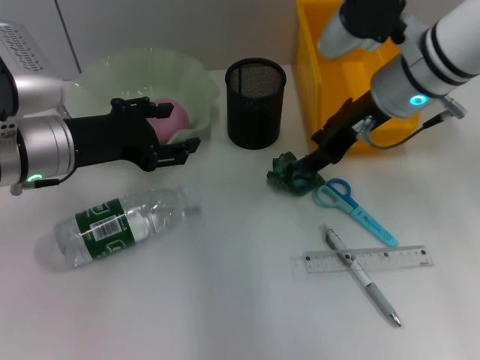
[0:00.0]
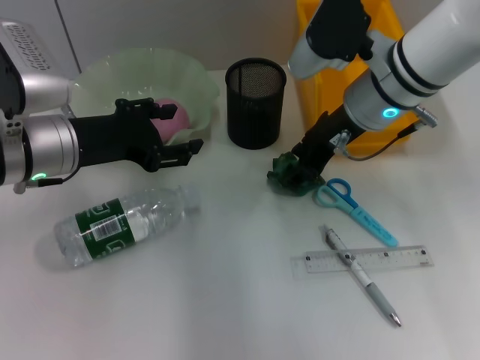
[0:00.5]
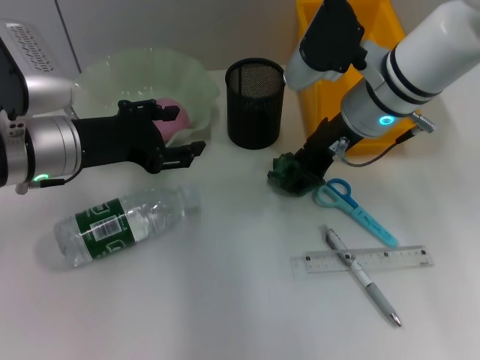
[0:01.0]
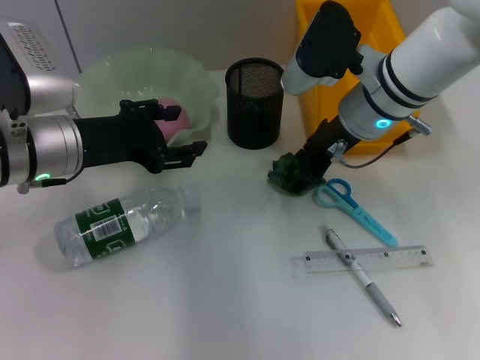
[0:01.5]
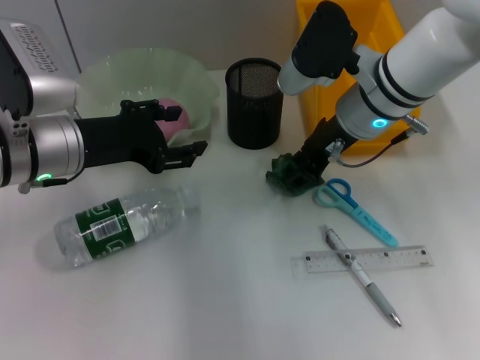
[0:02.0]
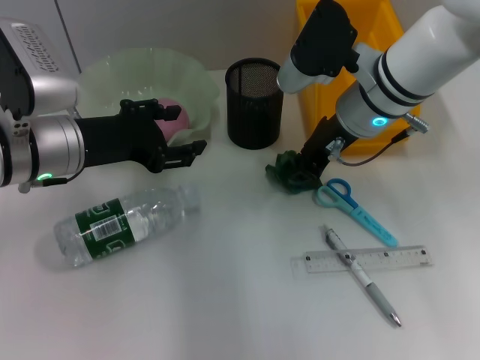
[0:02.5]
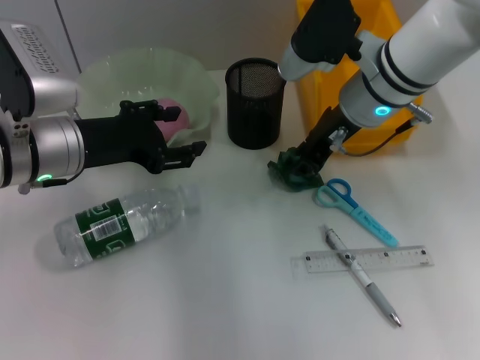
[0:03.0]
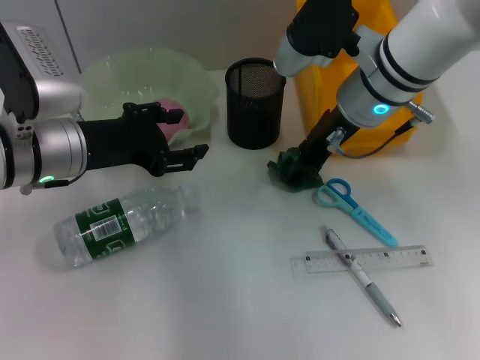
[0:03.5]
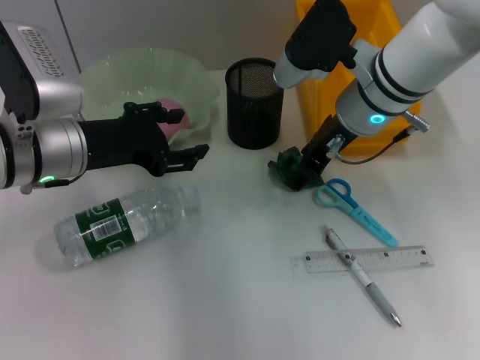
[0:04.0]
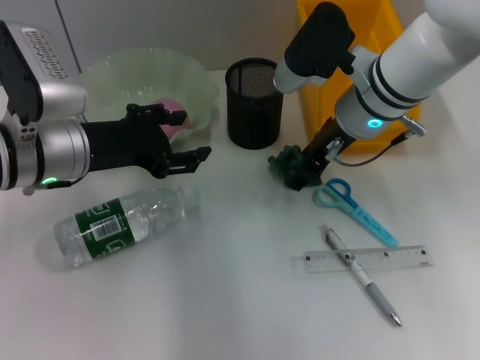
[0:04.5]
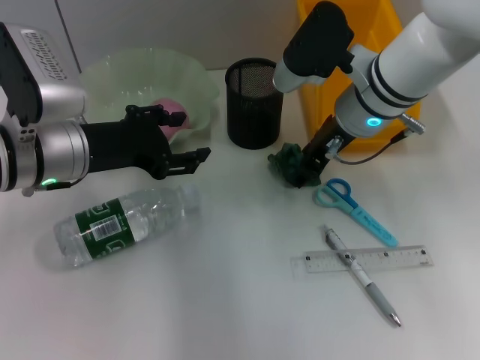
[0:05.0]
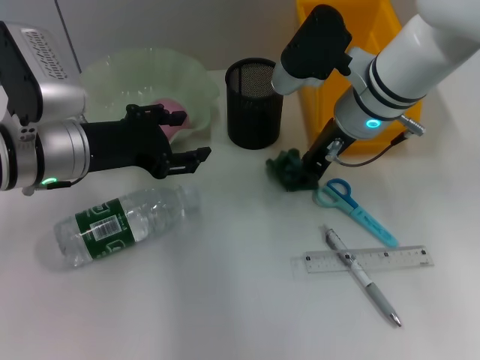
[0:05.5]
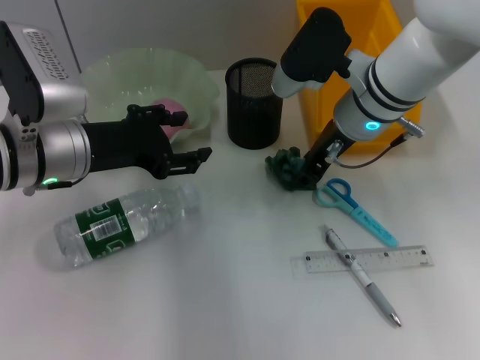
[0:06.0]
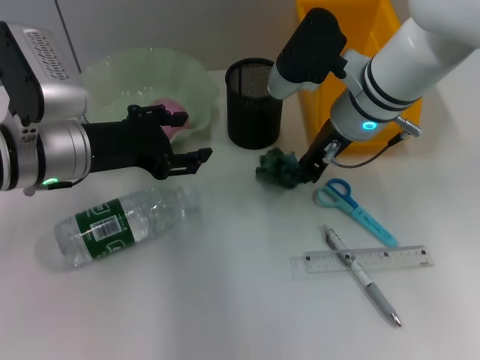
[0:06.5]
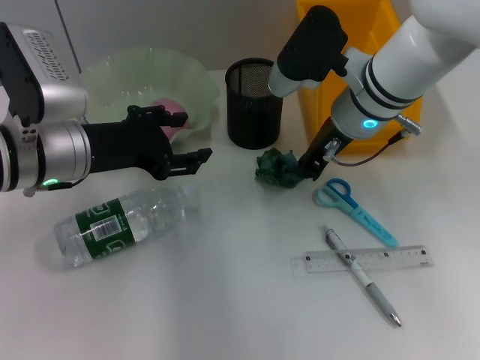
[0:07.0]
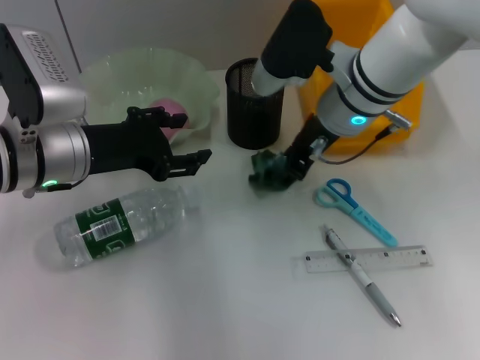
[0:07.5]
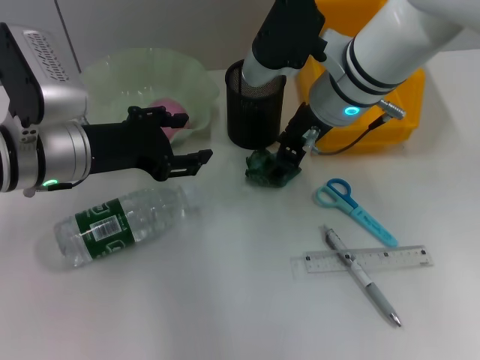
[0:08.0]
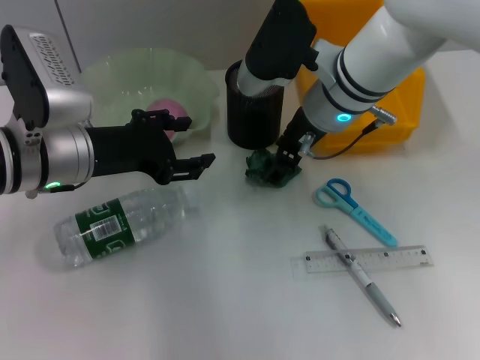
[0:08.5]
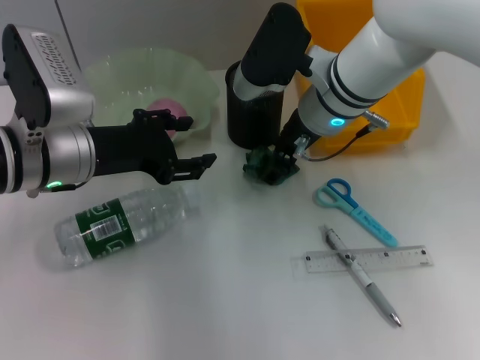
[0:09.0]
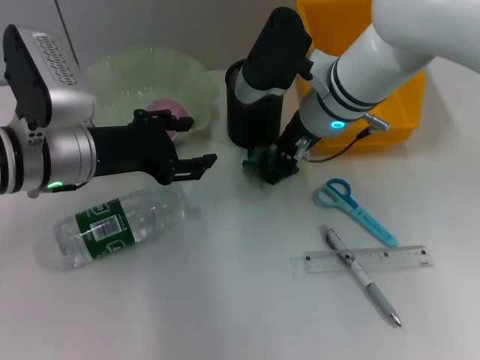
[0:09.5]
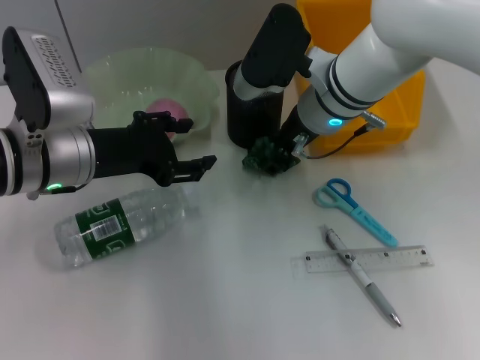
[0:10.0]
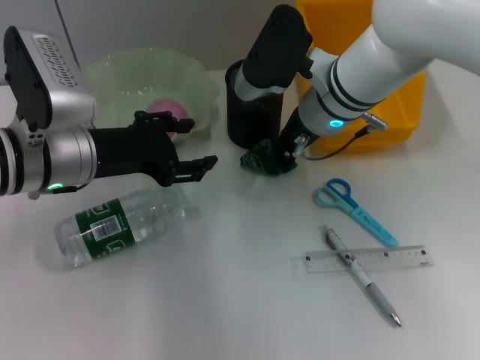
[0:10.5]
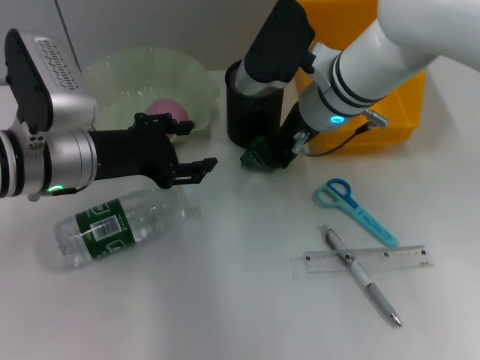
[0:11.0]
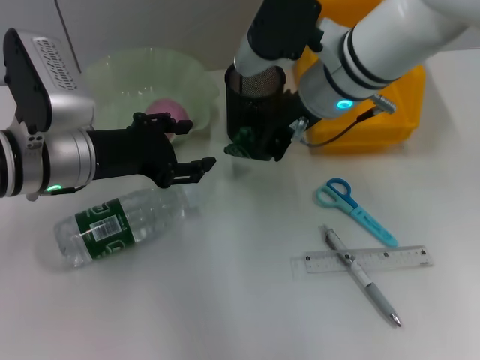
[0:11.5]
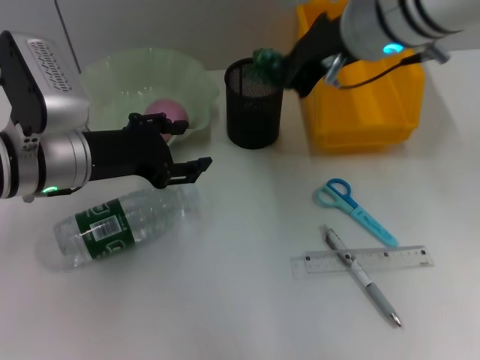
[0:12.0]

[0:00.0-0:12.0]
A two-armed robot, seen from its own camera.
Step, 0:00.0 to 0:10.5: Grab the plastic with the right hand.
0:00.0 to 0:02.0: There are only small adjustments of the grippers.
0:02.0 to 0:04.0: The right gripper closes, then reopens.
0:04.0 to 0:06.0: The right gripper closes.
0:06.0 to 0:08.0: The right gripper opens its fingers.
0:08.0 to 0:10.0: There are only small adjustments of the grippers.
0:10.0 to 0:12.0: The right gripper goes approximately 10 cm upward, and closes up.

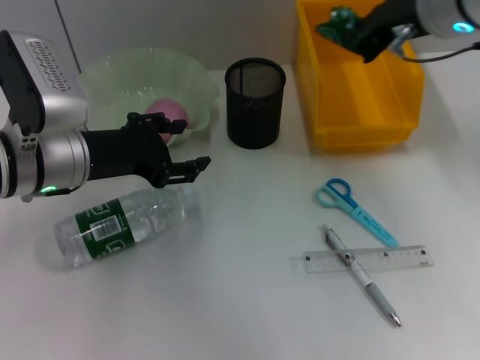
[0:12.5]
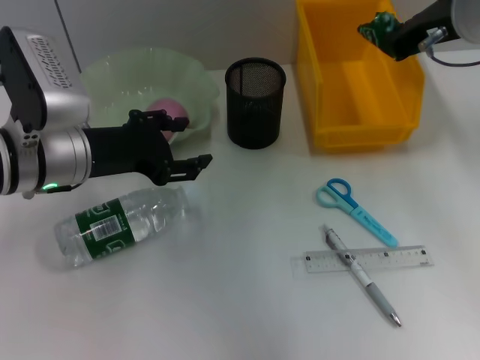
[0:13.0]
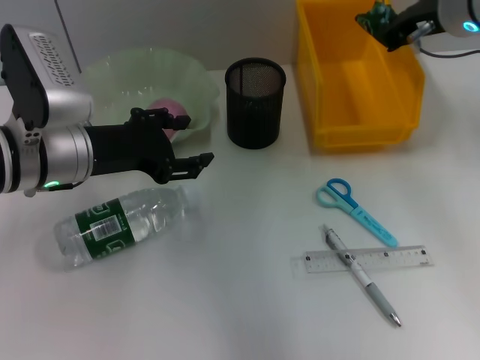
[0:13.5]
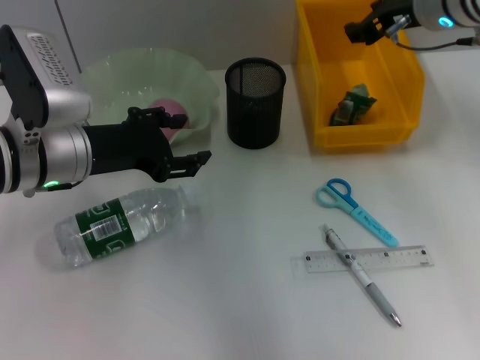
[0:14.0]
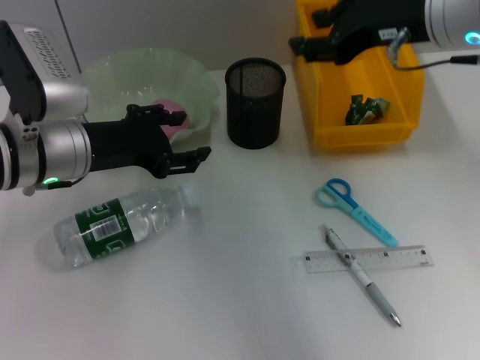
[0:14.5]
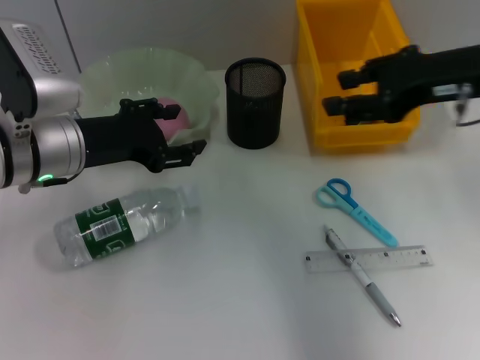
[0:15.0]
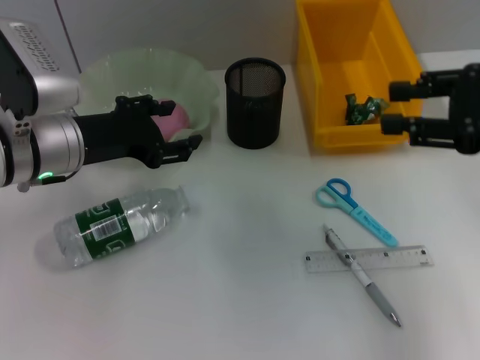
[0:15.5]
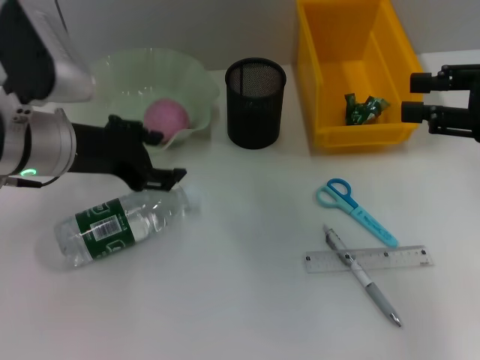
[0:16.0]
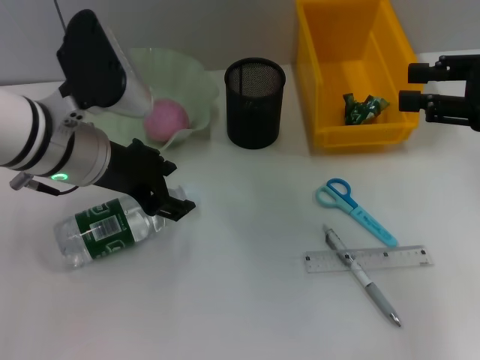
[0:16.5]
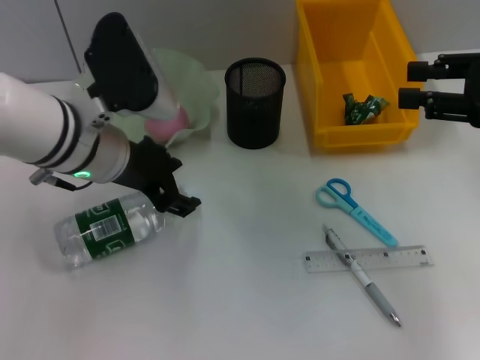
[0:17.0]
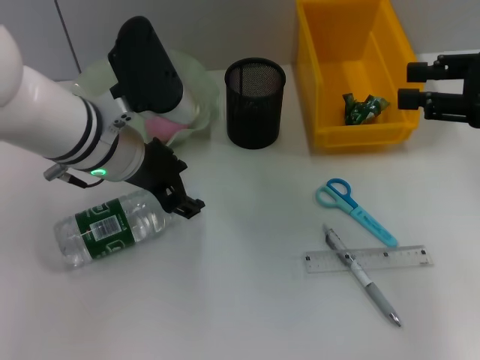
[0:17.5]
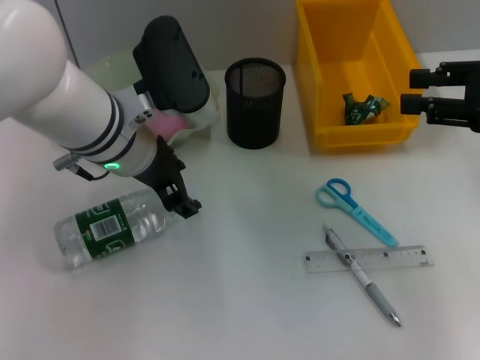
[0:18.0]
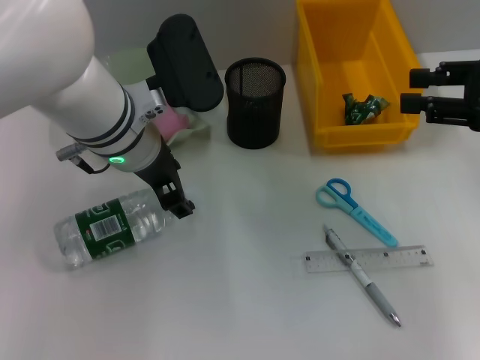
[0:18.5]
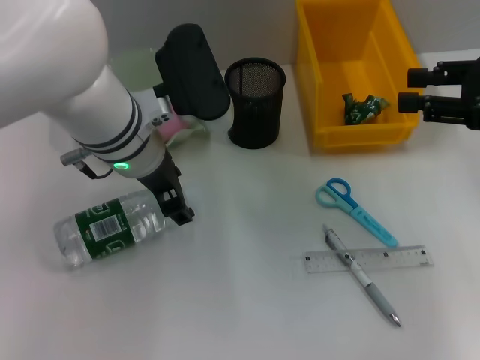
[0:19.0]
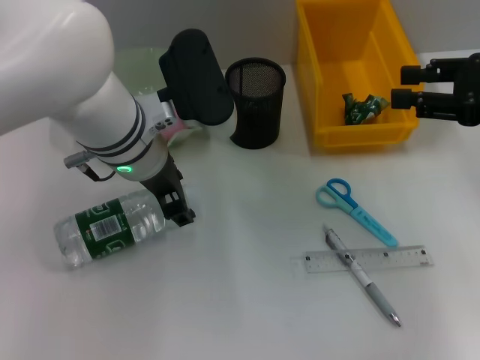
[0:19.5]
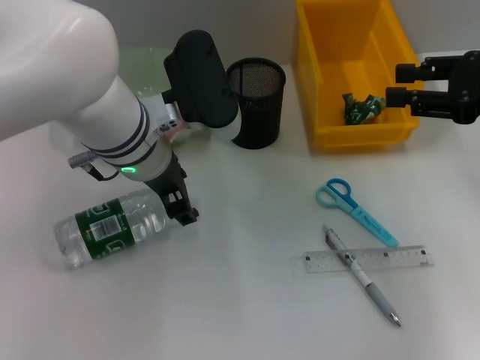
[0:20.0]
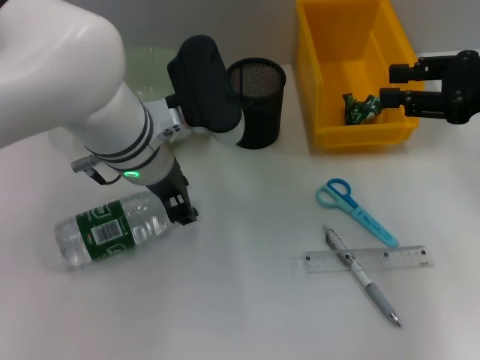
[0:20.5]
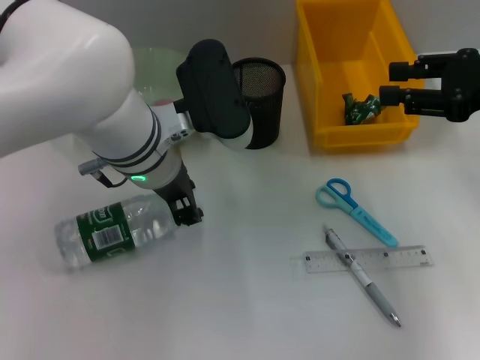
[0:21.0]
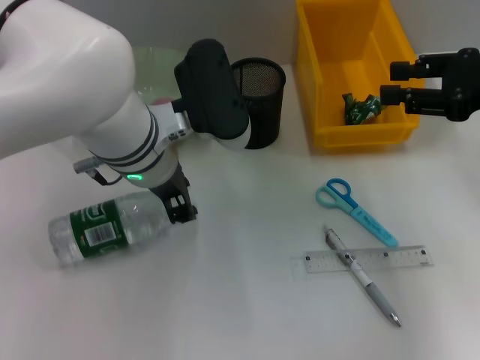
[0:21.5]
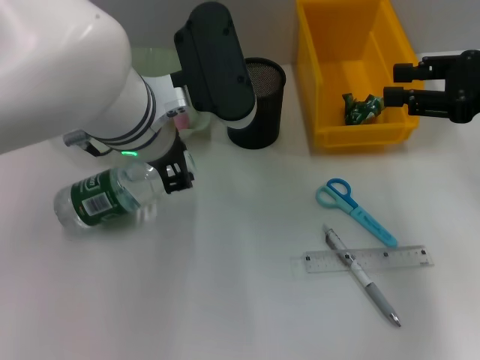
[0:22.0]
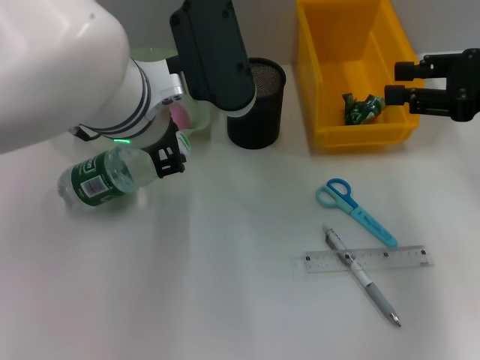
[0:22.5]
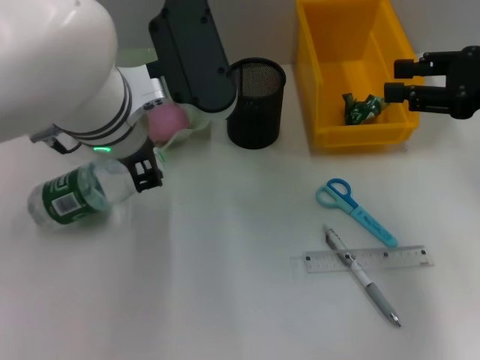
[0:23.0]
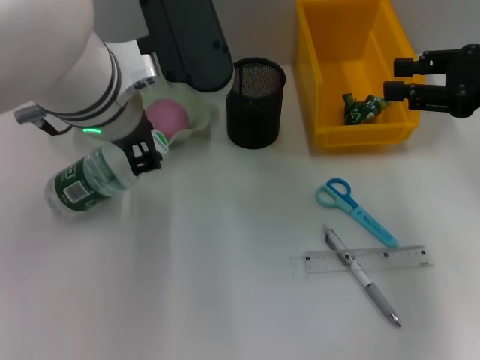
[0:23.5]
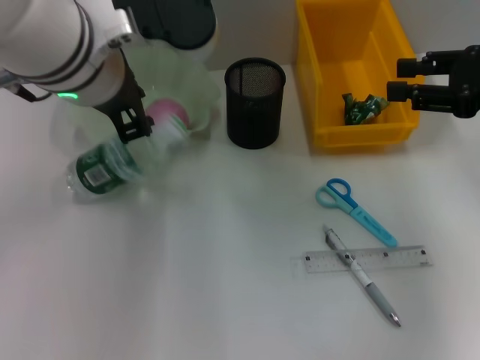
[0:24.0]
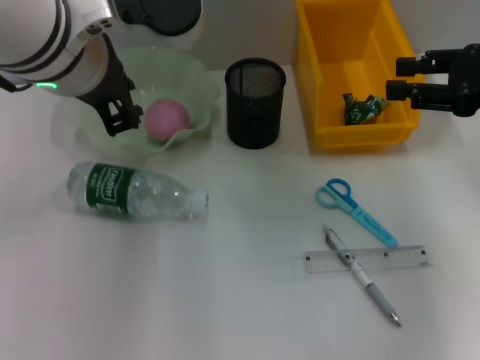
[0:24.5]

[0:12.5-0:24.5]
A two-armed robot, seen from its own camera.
Step, 0:12.5 to 0:15.0: Place the plastic into the trash can with the right hand.
0:12.5 to 0:14.5: The right gripper opens up.
0:14.5 to 0:16.5: The right gripper travels to the right and backward by about 15 cm.
0:16.5 to 0:18.5: The left gripper heads to the right, covering about 5 cm.
0:18.5 to 0:20.5: The grippers stay close to where they were, moving slightly.
0:20.5 to 0:22.5: The left gripper goes roughly 5 cm upward.
0:22.5 to 0:24.5: The left gripper shifts some 5 cm upward.

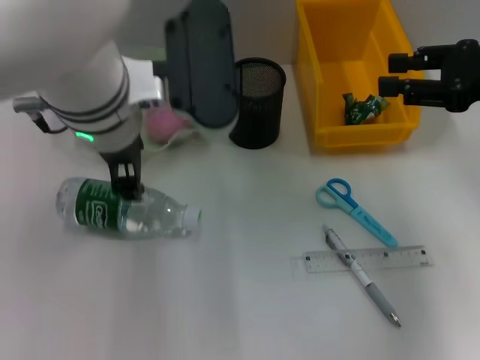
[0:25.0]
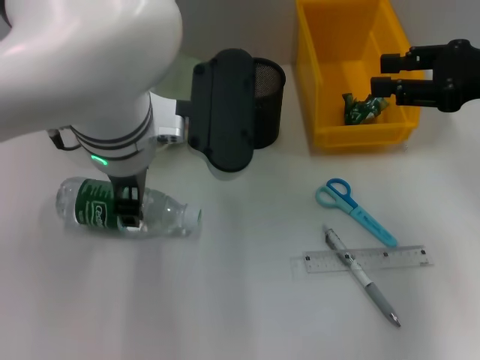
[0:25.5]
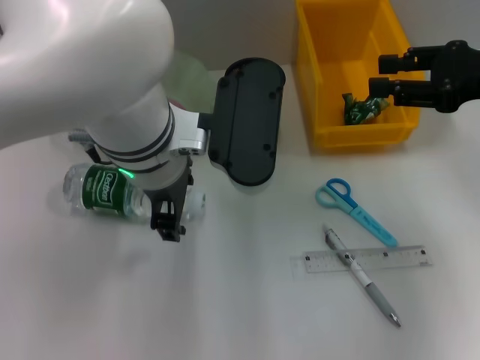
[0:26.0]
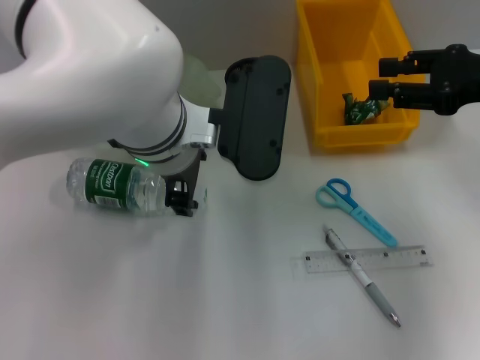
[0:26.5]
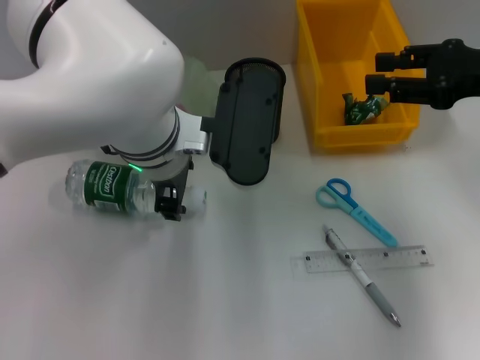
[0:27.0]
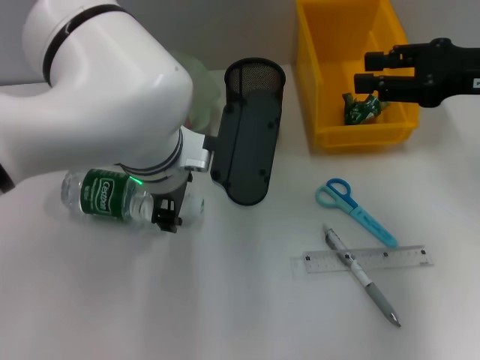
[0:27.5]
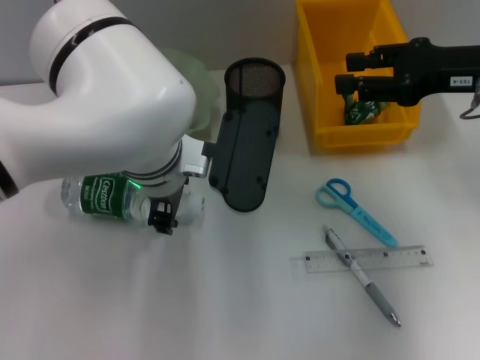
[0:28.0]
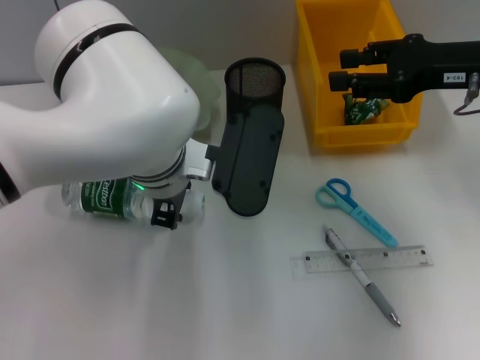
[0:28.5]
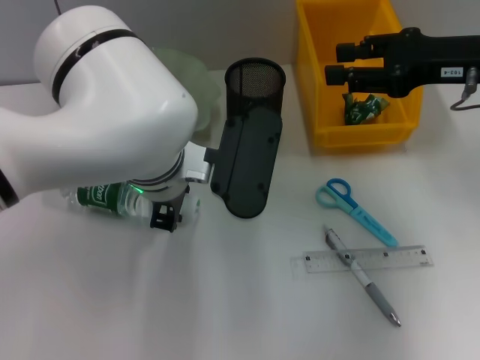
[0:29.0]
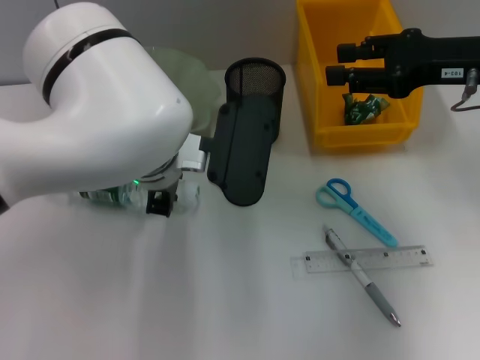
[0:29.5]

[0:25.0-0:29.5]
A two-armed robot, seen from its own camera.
0:25.0 to 0:27.0: The left gripper goes some 5 cm downward, and opens up.
0:27.0 to 0:29.5: The left gripper closes.
